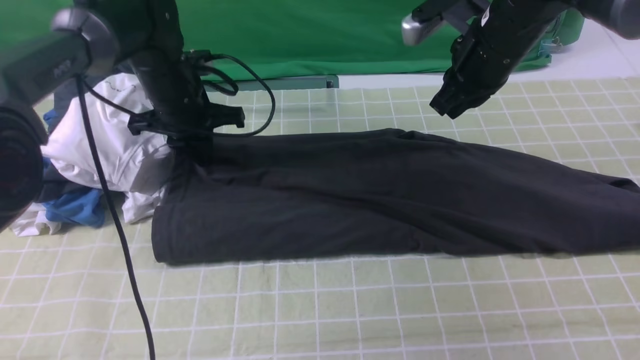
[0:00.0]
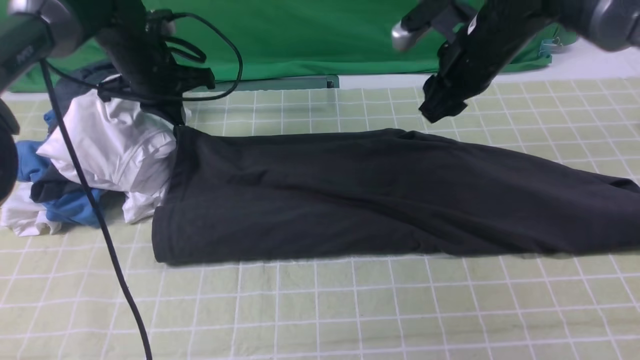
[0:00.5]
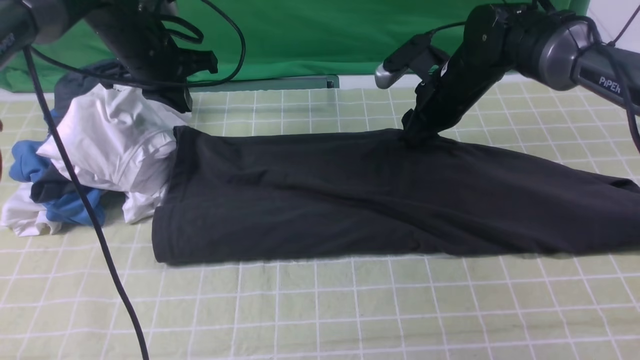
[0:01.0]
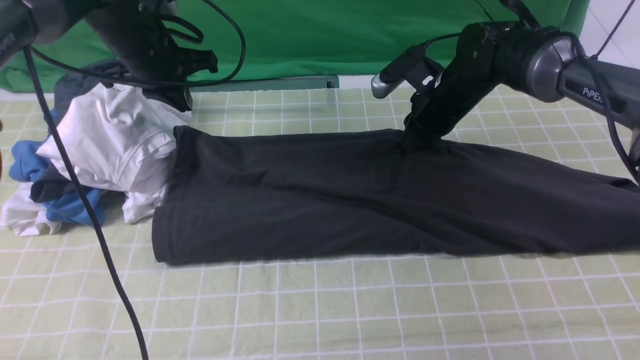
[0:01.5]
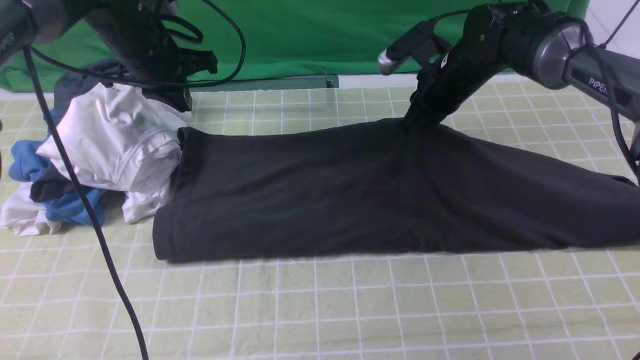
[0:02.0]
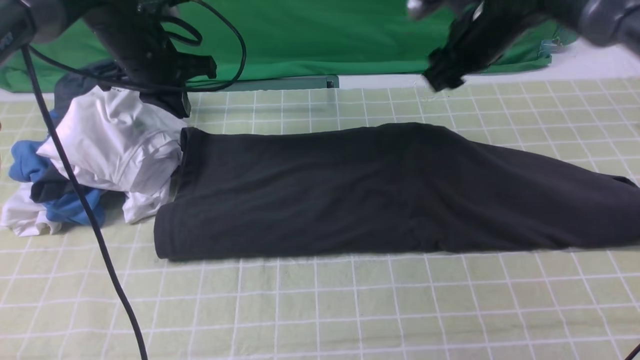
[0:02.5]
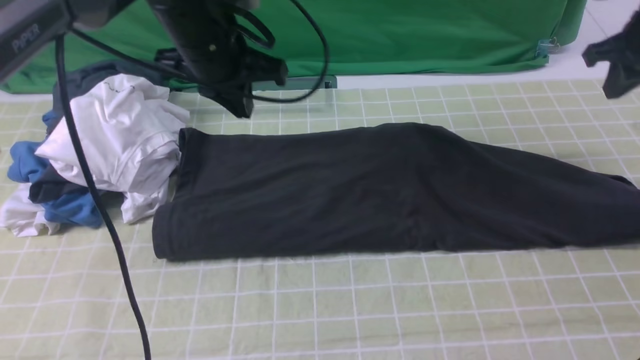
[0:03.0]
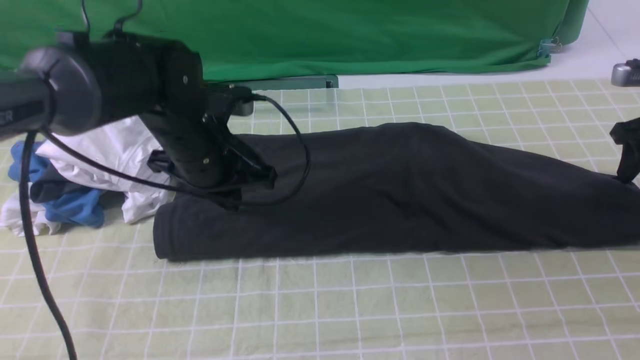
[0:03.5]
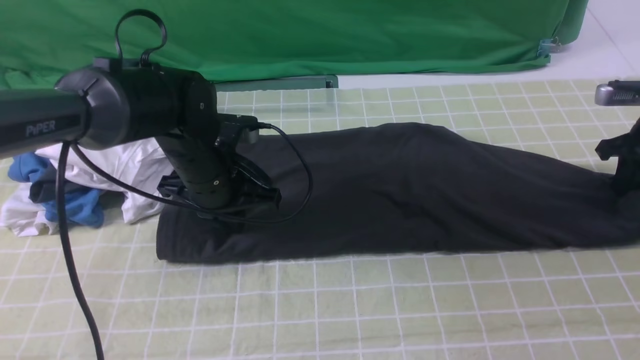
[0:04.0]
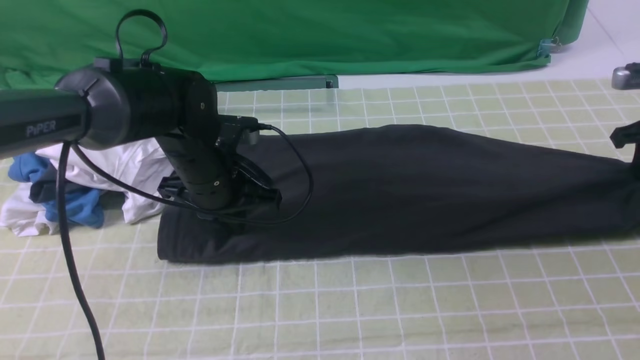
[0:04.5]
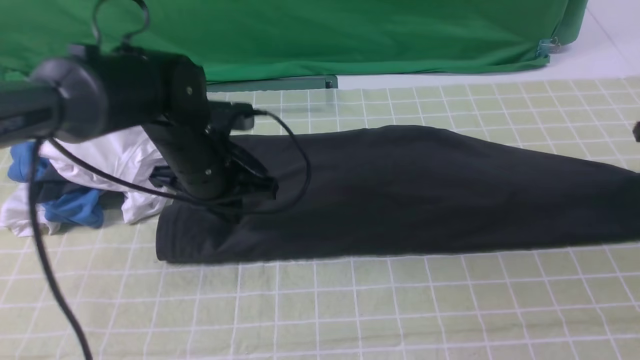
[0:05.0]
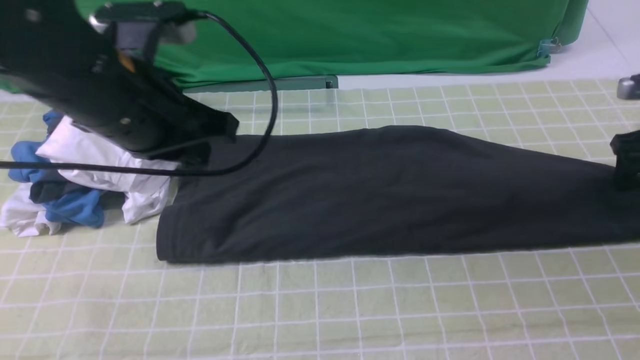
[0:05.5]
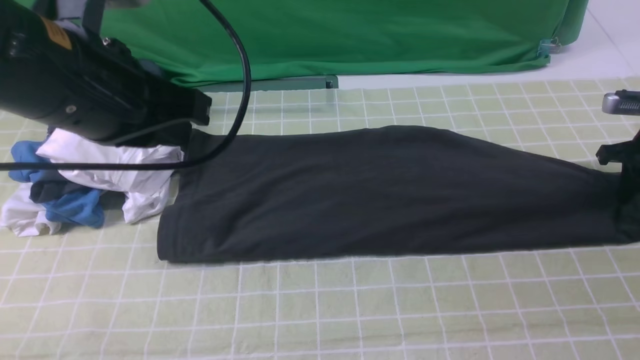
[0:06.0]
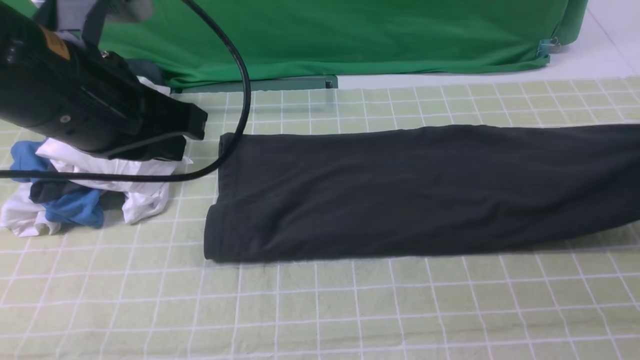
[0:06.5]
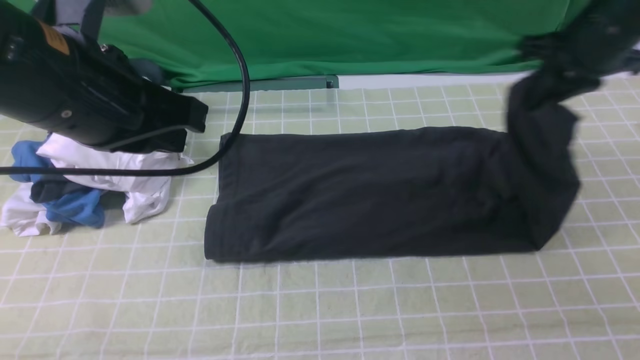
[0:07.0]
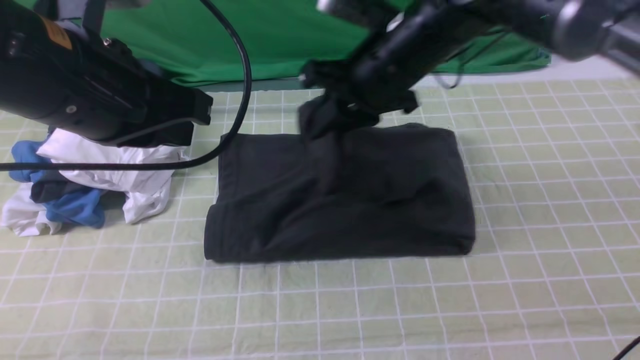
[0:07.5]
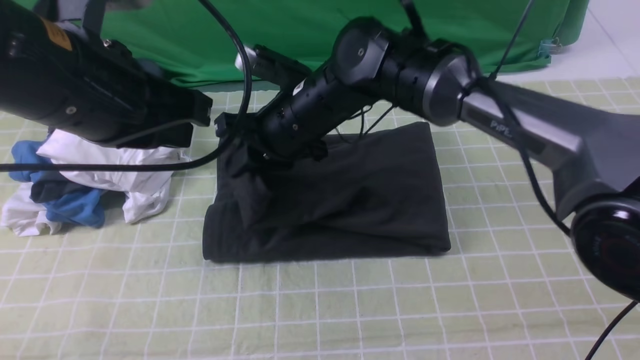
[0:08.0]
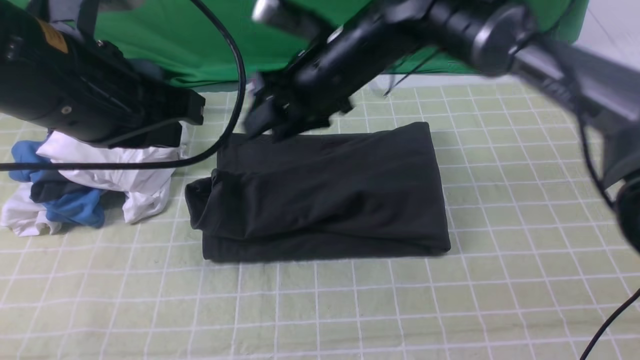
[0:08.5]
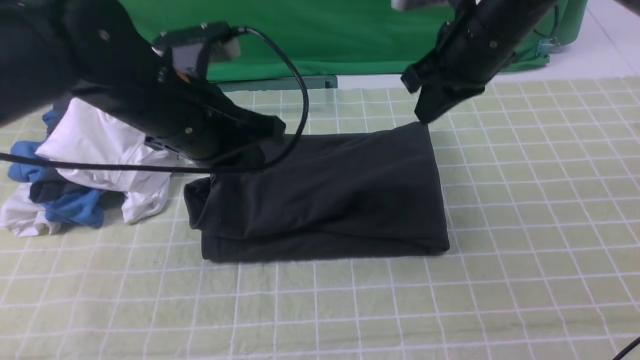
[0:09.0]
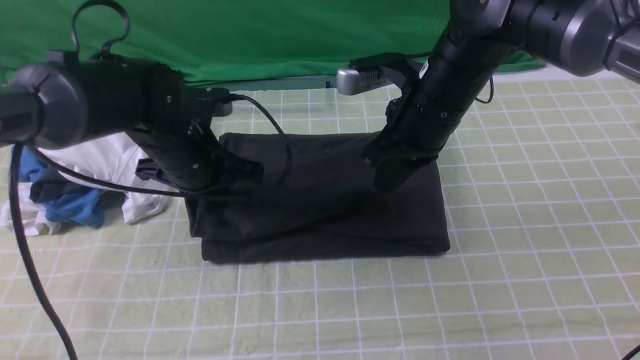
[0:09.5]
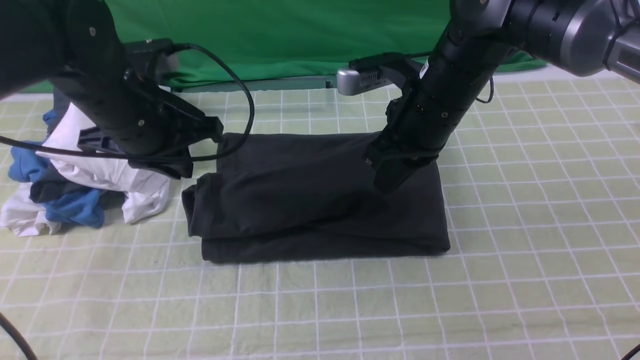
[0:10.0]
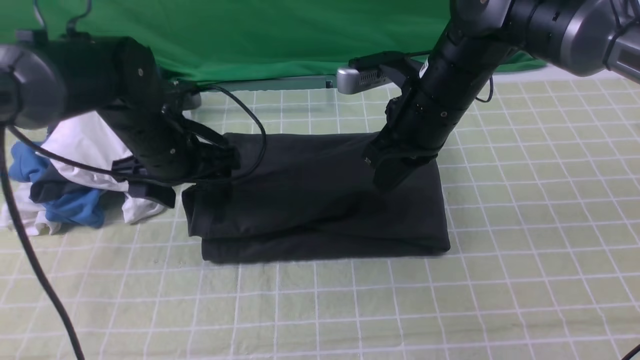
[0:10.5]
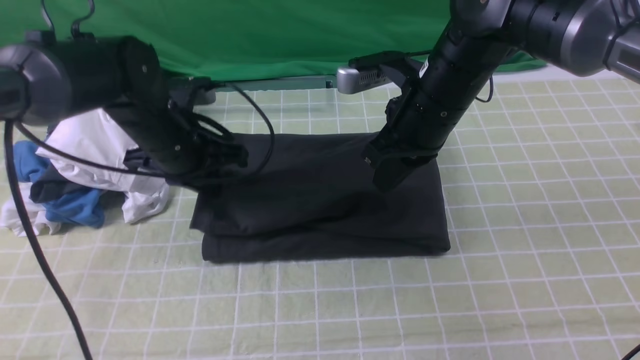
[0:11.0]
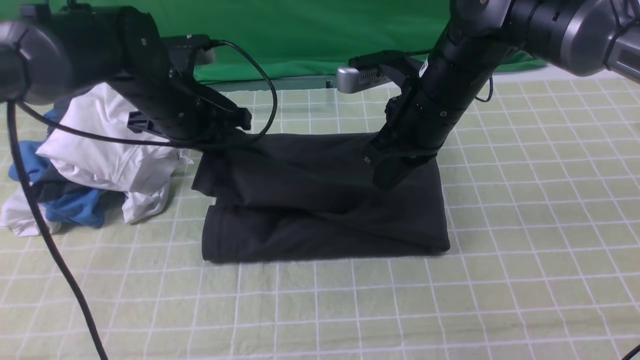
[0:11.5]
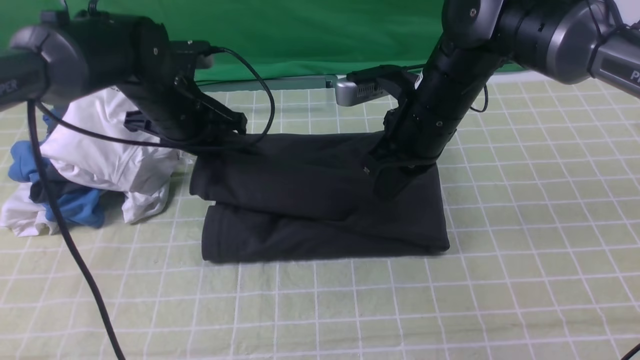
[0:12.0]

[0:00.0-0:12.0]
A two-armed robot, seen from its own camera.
Step, 0:00.0 to 0:06.0: use the right arm to clamp the right edge of the fabric.
Step, 0:06.5 to 0:08.0: use the right arm to drag the right edge of the fabric to the left and folds it over the left edge.
0:00.0 to 0:02.0: The left gripper ends up roughly 5 cm from where it was; the right gripper travels downward and forward by approximately 10 cm, and opens and closes again.
0:02.0 to 0:04.0: The right gripper moves to the right, roughly 25 cm, and opens, then closes again; the left gripper is displaced backward, to the right and downward by roughly 15 cm.
0:04.0 to 0:06.0: The left gripper travels upward and backward by some 20 cm, while the right gripper opens, then closes once more.
0:06.0 to 0:08.0: The right gripper goes roughly 40 cm to the left.
0:08.0 to 0:10.0: The right gripper goes approximately 10 cm to the right, and closes up. The left gripper heads downward and forward, covering approximately 15 cm.
0:10.0 to 0:12.0: The left gripper heads forward, covering approximately 5 cm, and opens, then closes once more.

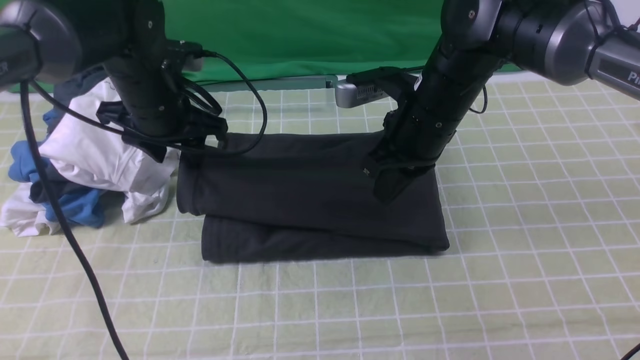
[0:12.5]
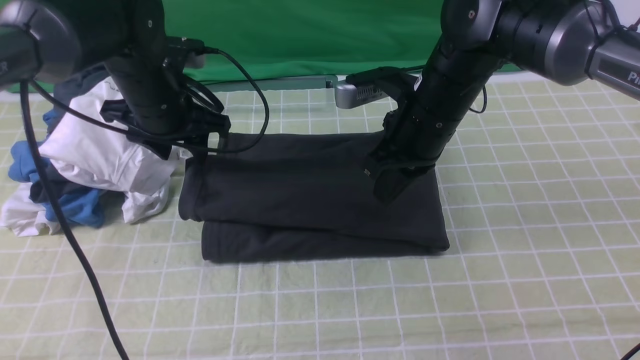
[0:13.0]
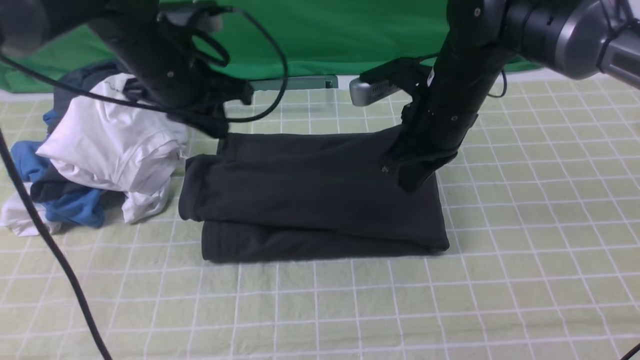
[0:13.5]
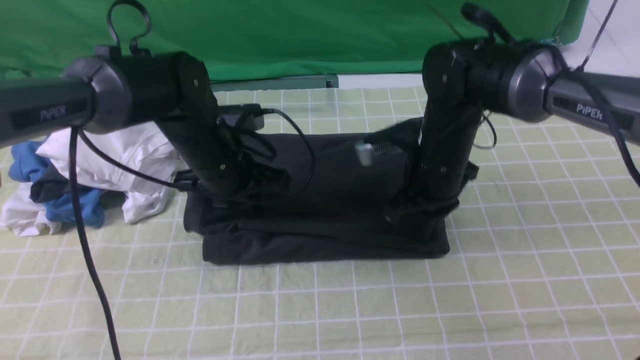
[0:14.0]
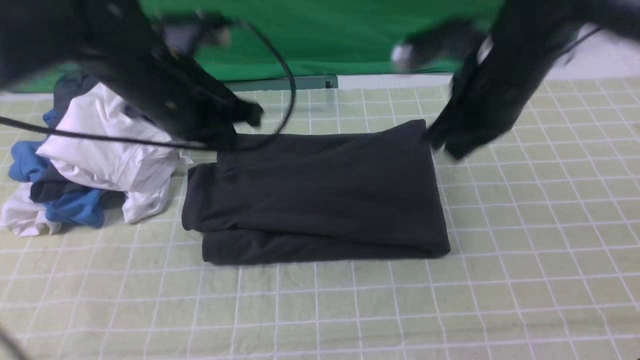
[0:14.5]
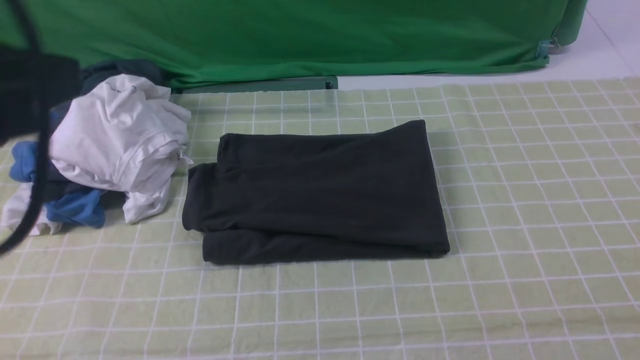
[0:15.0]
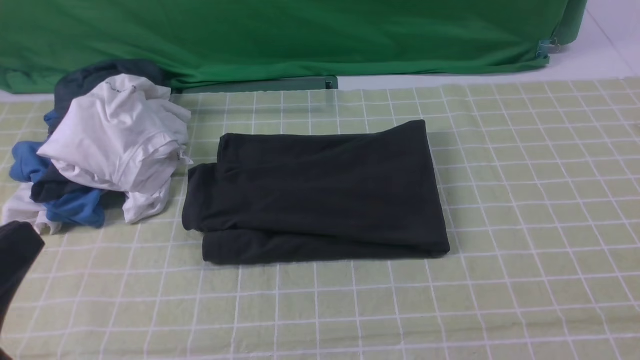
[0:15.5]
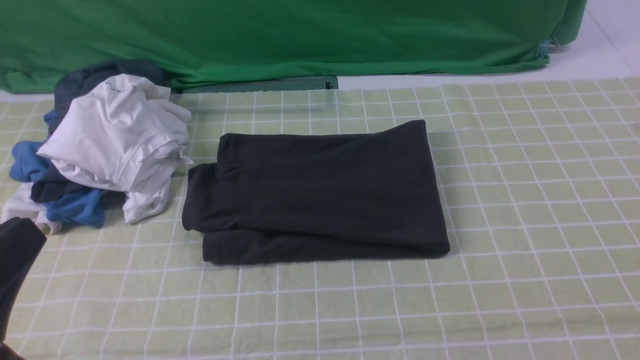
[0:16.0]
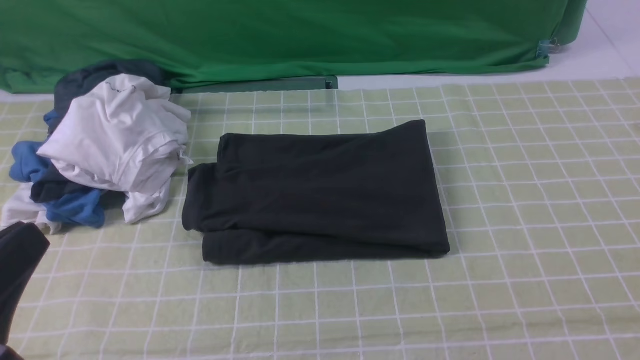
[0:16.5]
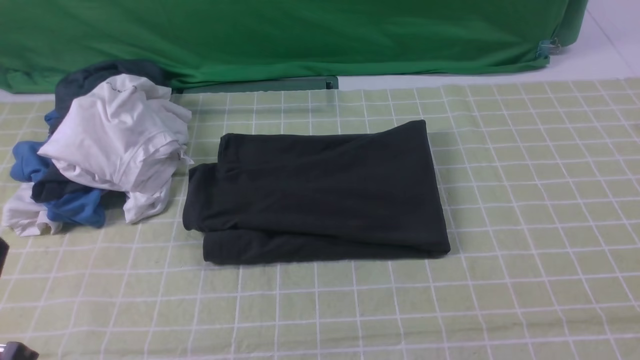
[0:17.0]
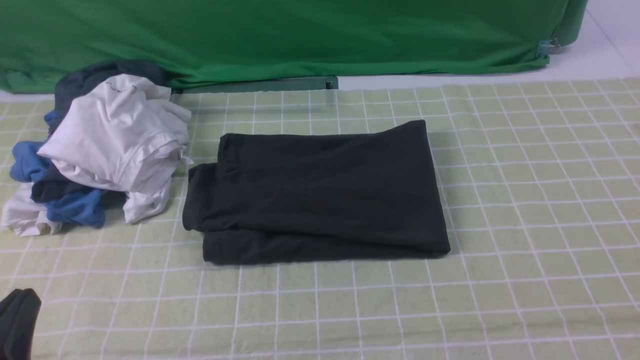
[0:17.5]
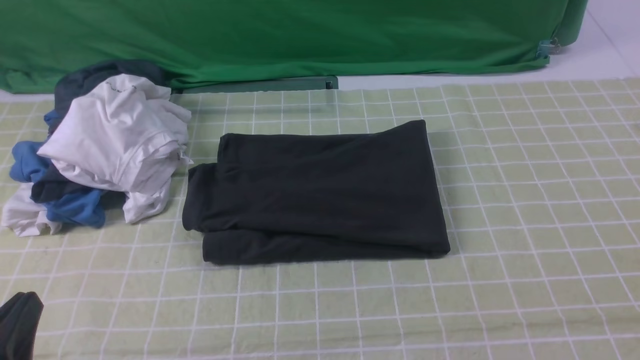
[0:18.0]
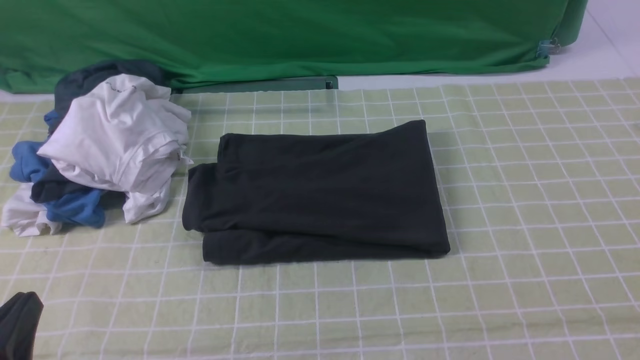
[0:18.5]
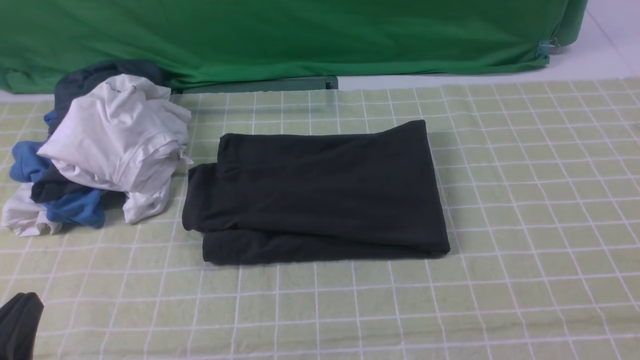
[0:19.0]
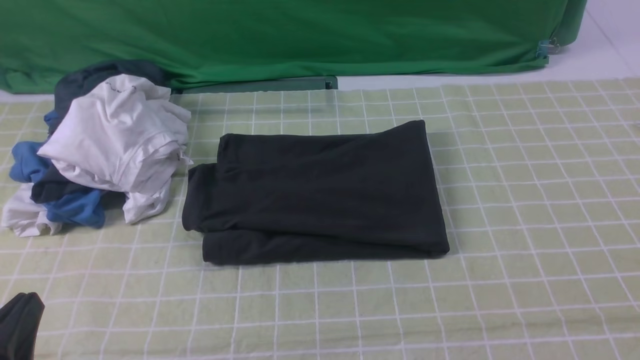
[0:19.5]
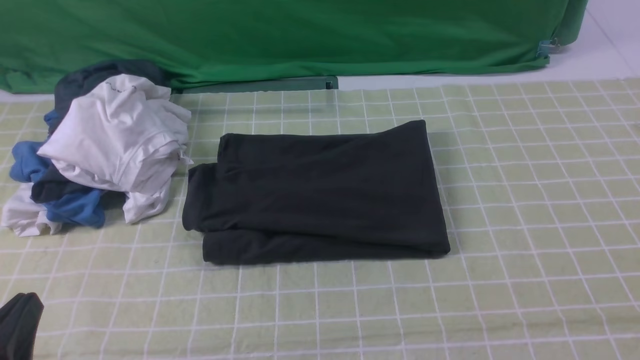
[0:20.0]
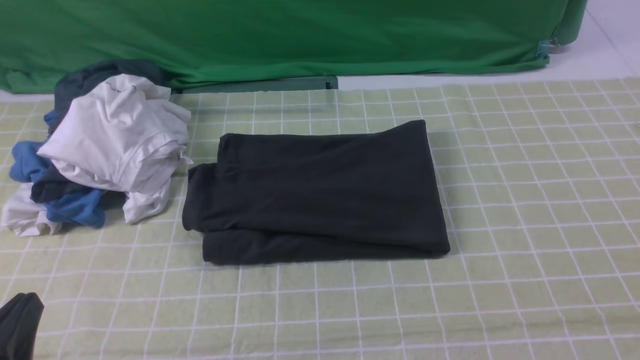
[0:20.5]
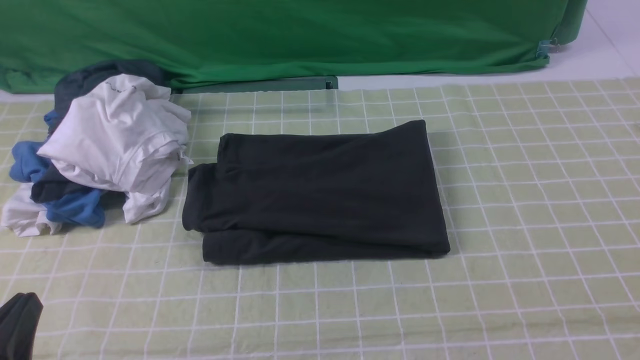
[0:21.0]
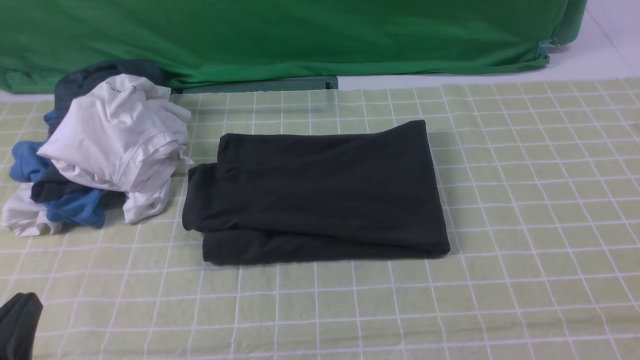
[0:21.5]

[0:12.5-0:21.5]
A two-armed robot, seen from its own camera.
0:12.5 to 0:14.5: The left gripper shifts about 10 cm upward and backward, and closes up; the right gripper heads upward and to the right, covering some 10 cm.
0:14.5 to 0:17.0: The left gripper heads backward, covering approximately 25 cm. The right gripper moves backward and to the right, about 35 cm.
0:17.0 to 0:19.5: The left gripper is displaced downward by roughly 5 cm.
